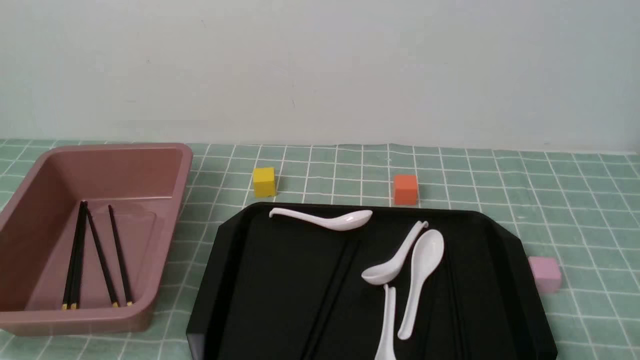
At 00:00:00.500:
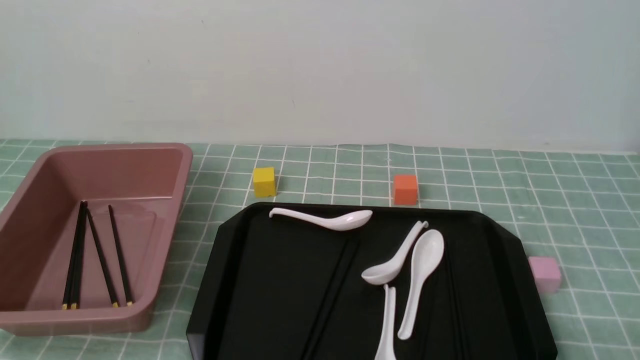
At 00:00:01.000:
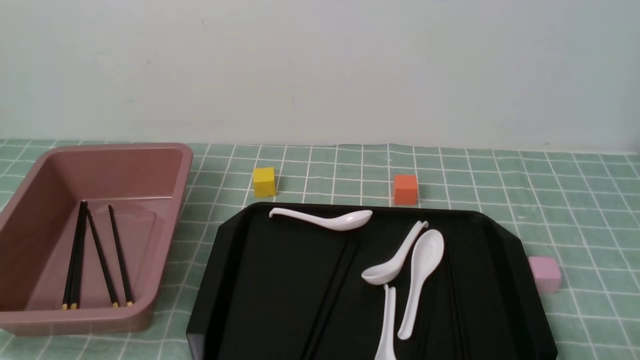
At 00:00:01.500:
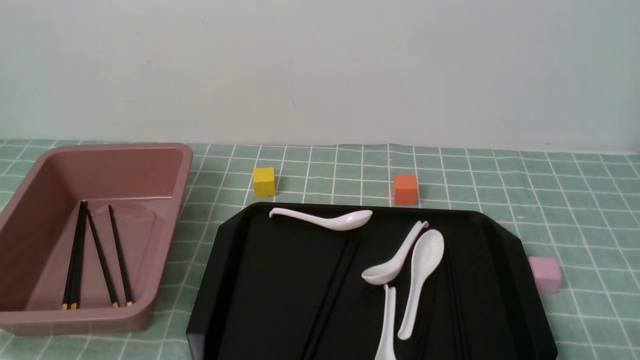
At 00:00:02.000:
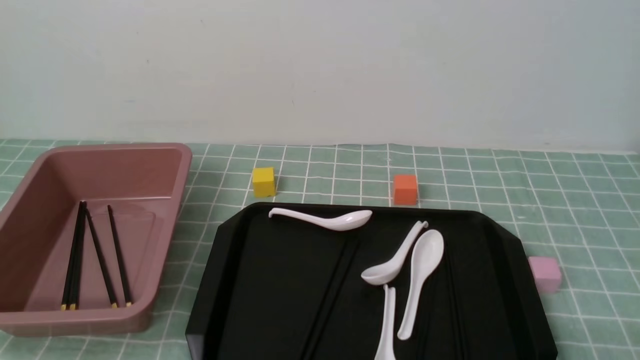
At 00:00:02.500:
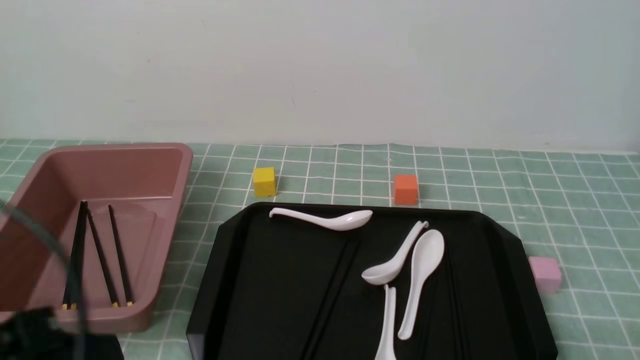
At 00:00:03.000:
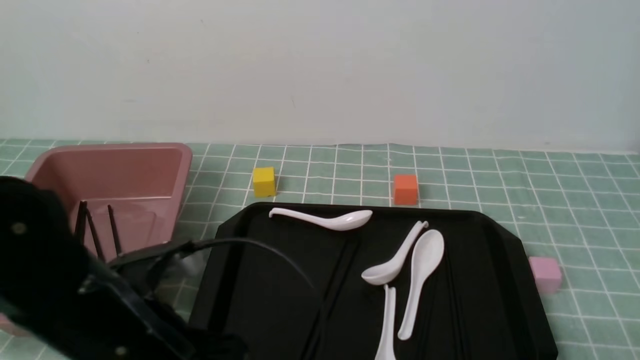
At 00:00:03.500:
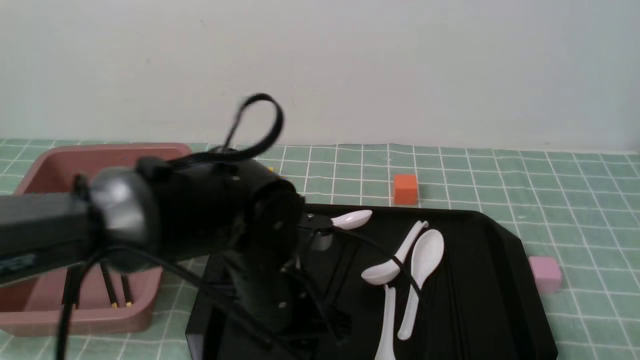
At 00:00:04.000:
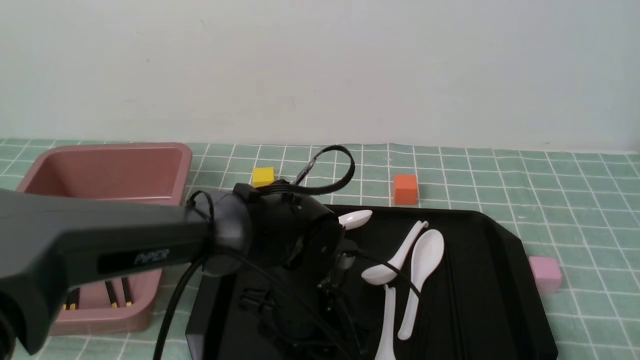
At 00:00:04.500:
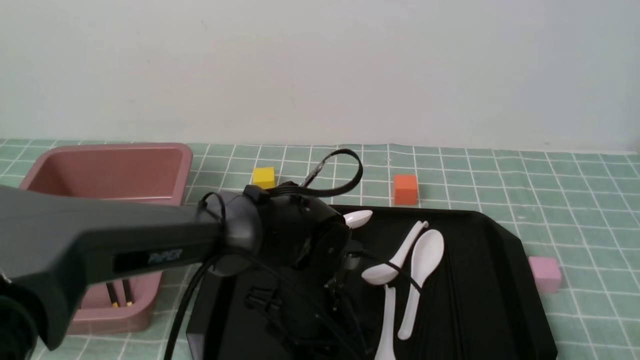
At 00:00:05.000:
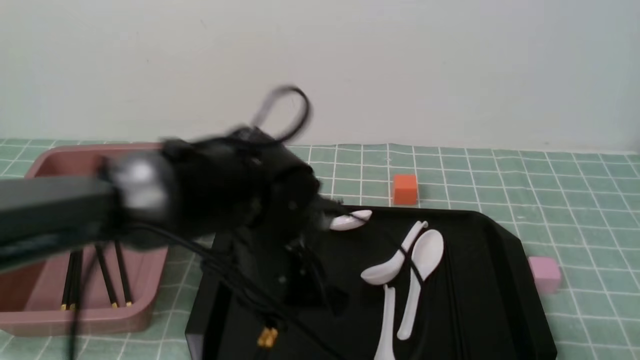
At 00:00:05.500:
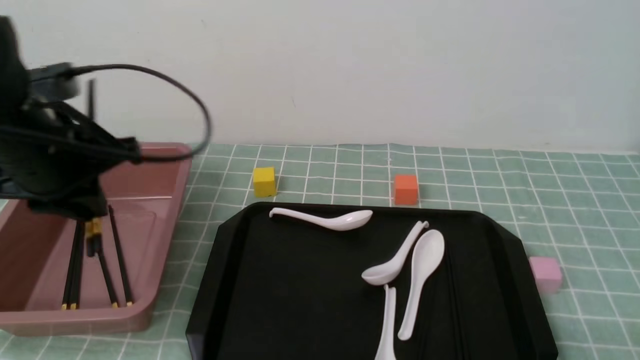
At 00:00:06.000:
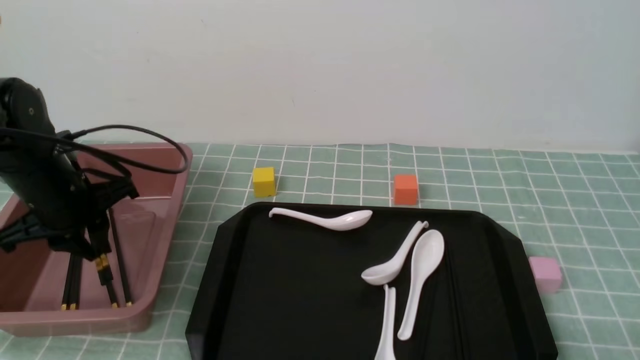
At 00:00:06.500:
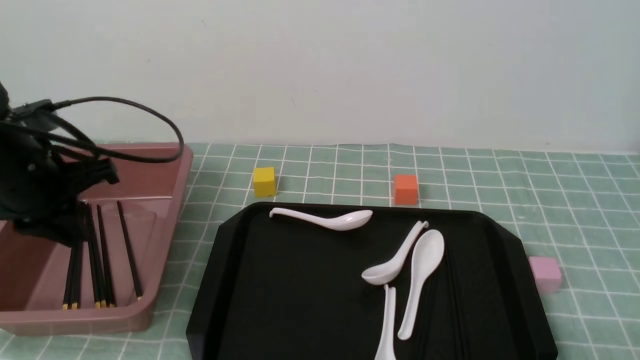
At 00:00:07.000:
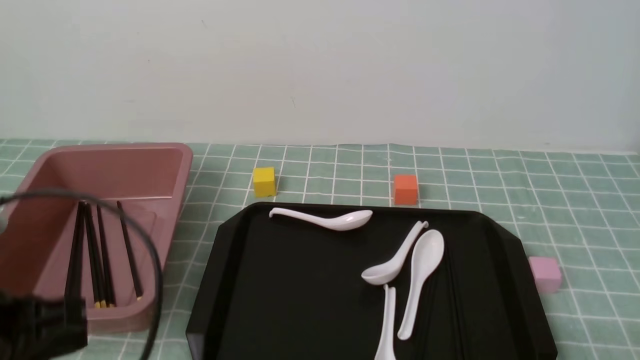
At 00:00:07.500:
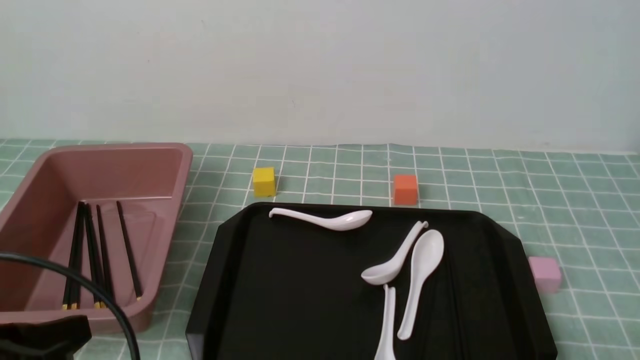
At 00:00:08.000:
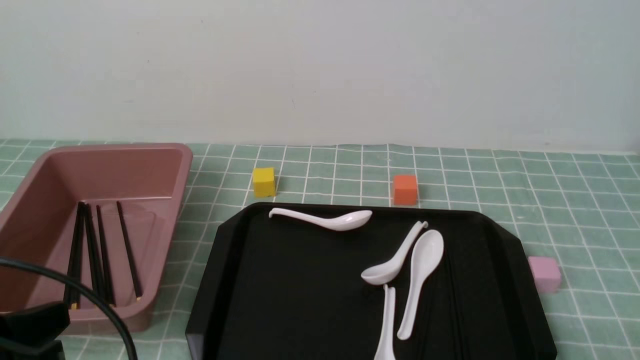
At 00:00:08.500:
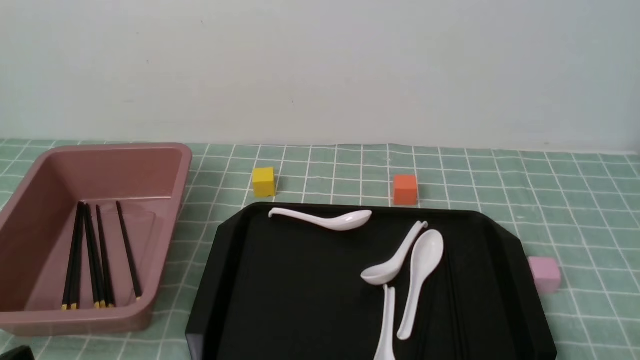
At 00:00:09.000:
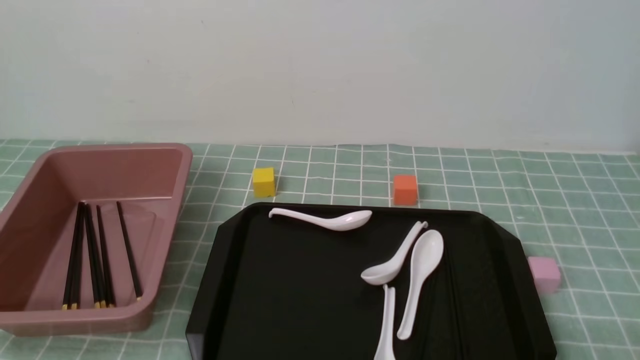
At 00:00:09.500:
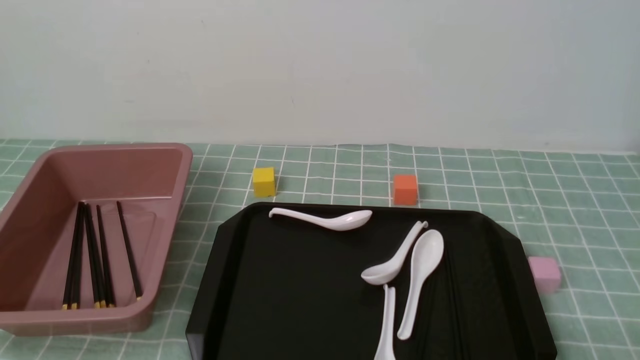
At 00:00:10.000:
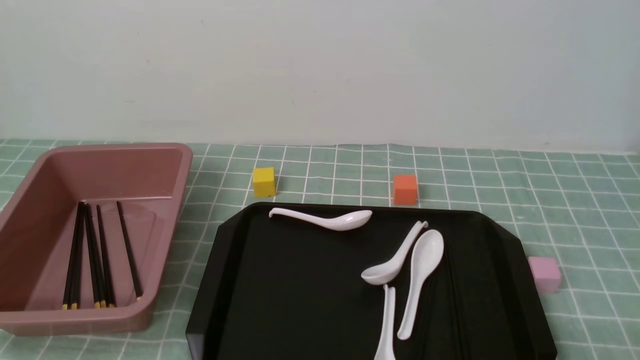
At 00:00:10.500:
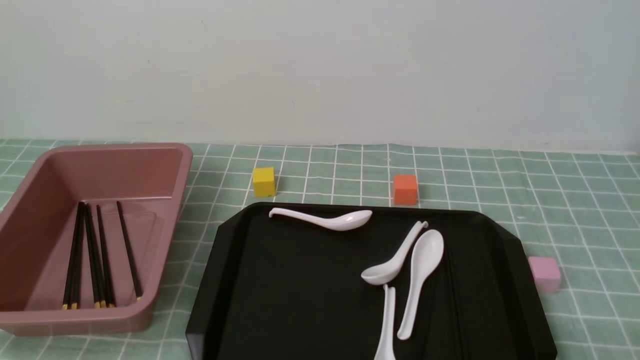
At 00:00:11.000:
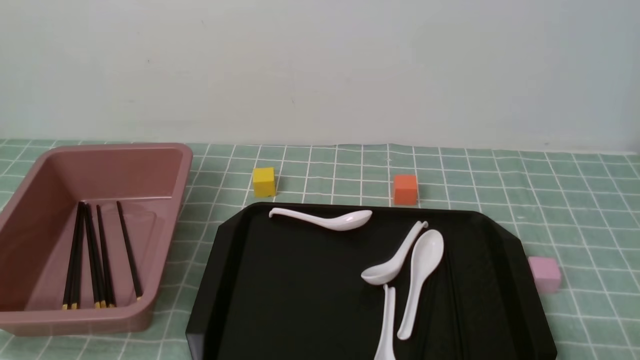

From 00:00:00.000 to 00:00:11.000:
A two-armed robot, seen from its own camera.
Step, from 00:00:00.000 to 00:00:05.000: use the left arm to grab a pair of chopsticks.
Step, from 00:00:05.500 to 00:00:06.500: use the left arm to put the chopsticks into the lunch box.
From 00:00:02.000 to 00:00:03.500: The left gripper goes some 30 cm forward and to the right, and opens.
From 00:00:03.500 to 00:00:05.500: The left gripper goes roughly 20 cm to the left and upward, and closes up.
From 00:00:05.500 to 00:00:07.500: The left gripper moves backward, roughly 20 cm.
From 00:00:07.500 to 00:00:09.000: The left gripper heads downward and backward, covering approximately 10 cm.
From 00:00:09.000 to 00:00:11.000: Both grippers stay about where they are.
